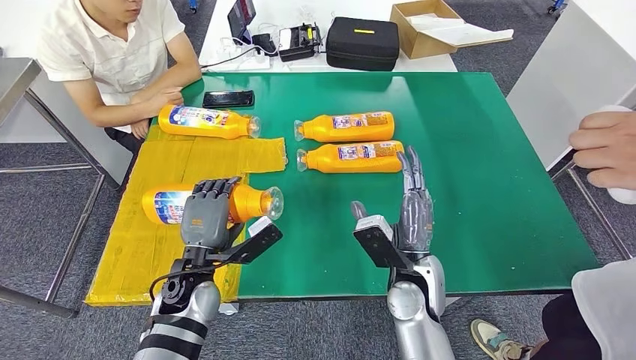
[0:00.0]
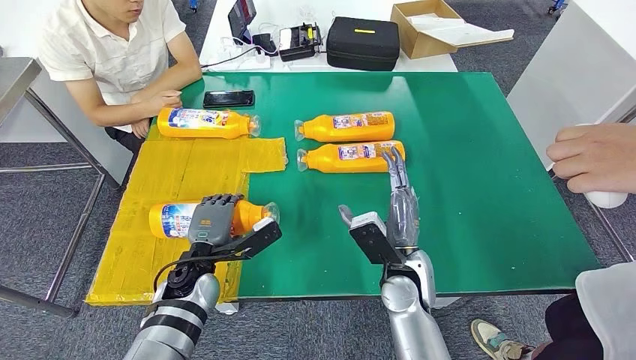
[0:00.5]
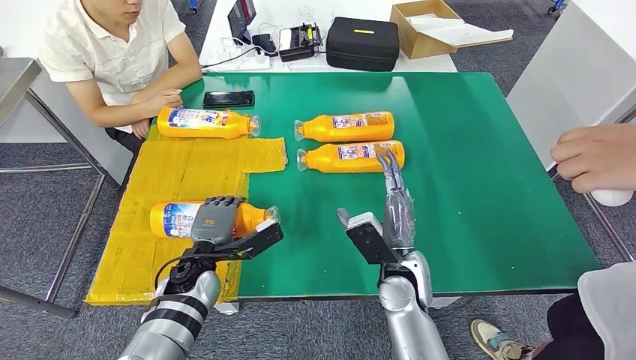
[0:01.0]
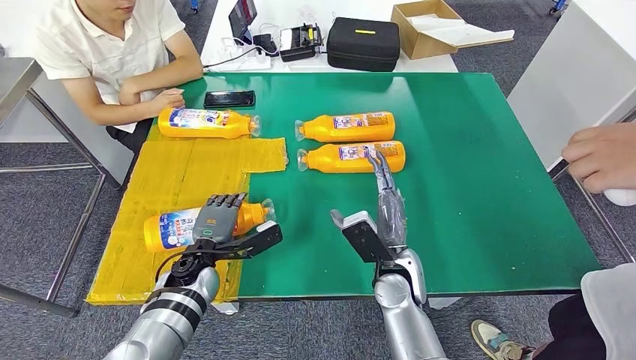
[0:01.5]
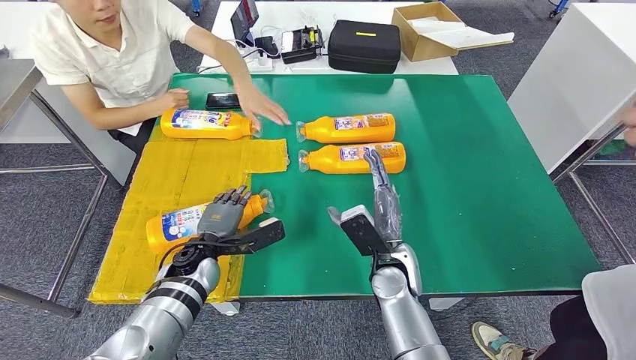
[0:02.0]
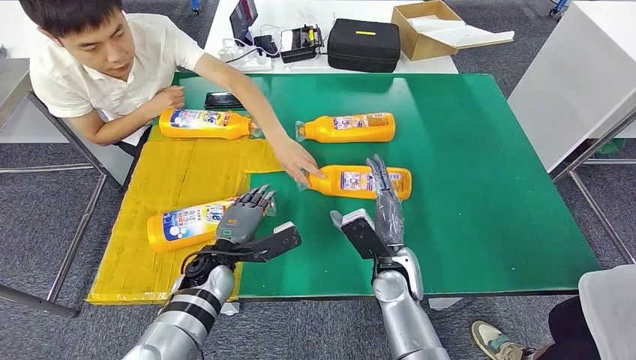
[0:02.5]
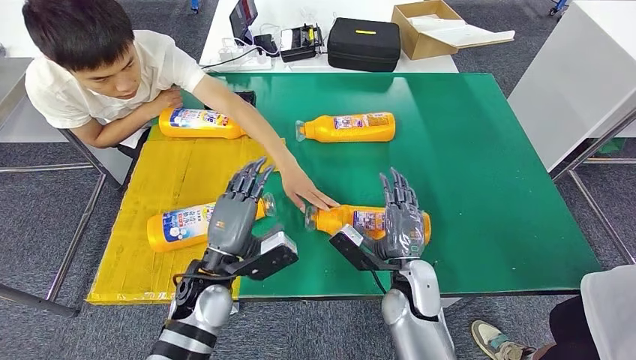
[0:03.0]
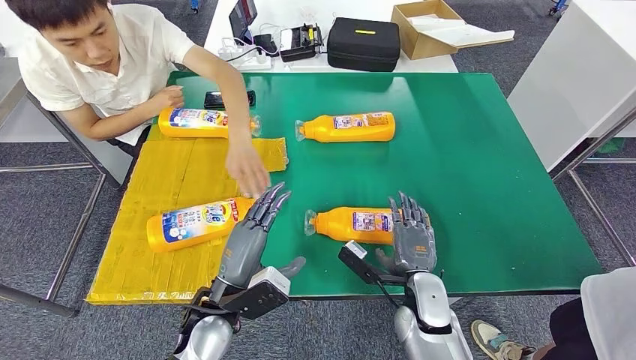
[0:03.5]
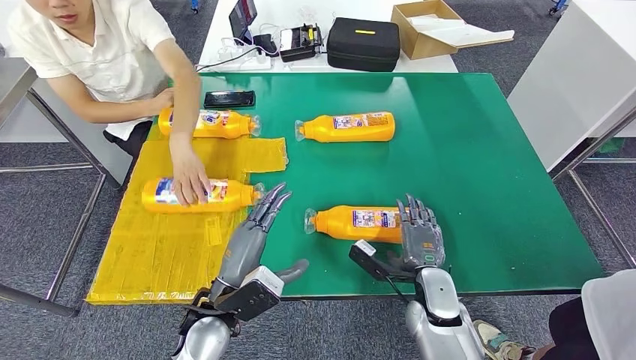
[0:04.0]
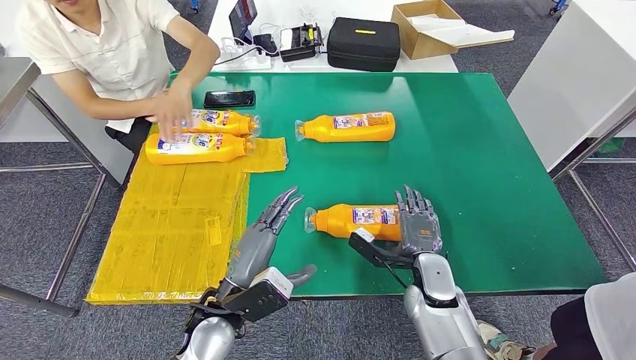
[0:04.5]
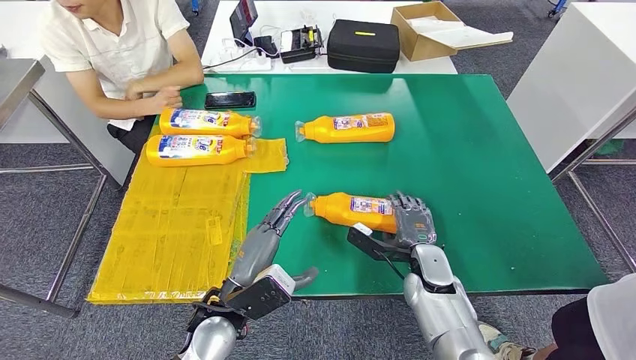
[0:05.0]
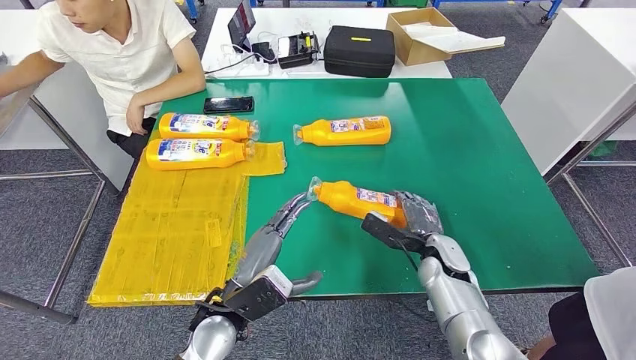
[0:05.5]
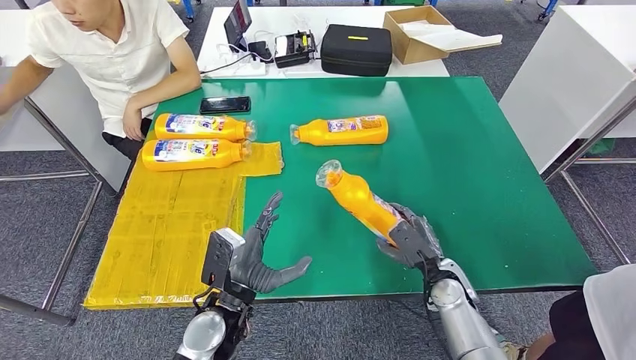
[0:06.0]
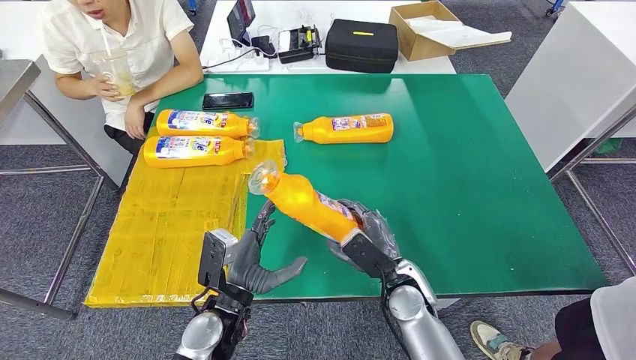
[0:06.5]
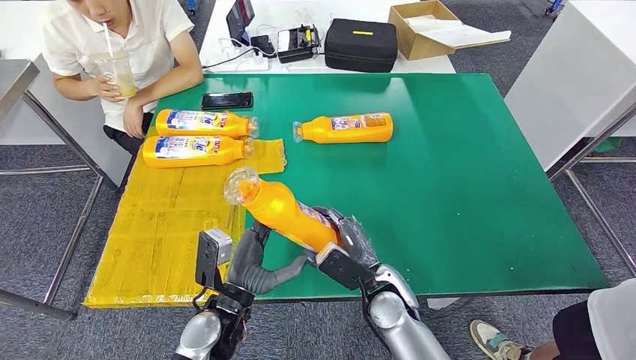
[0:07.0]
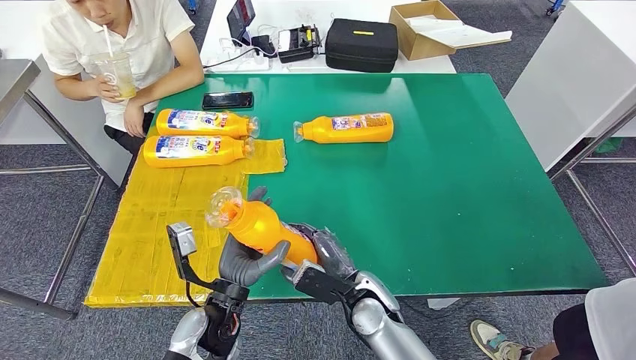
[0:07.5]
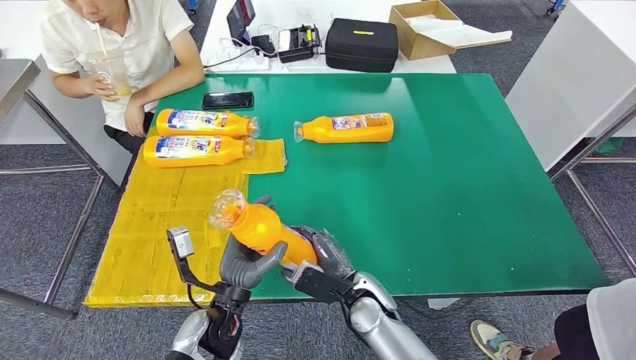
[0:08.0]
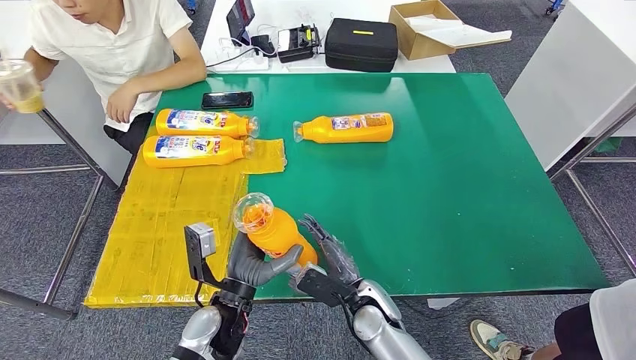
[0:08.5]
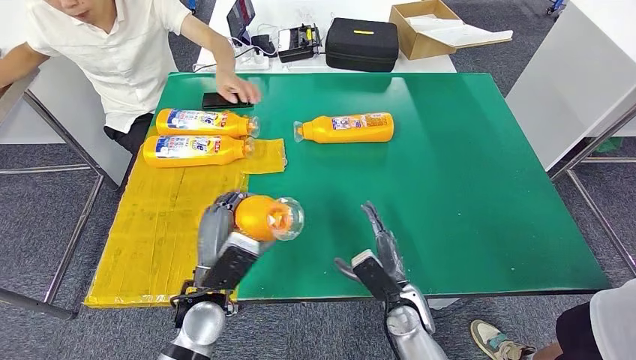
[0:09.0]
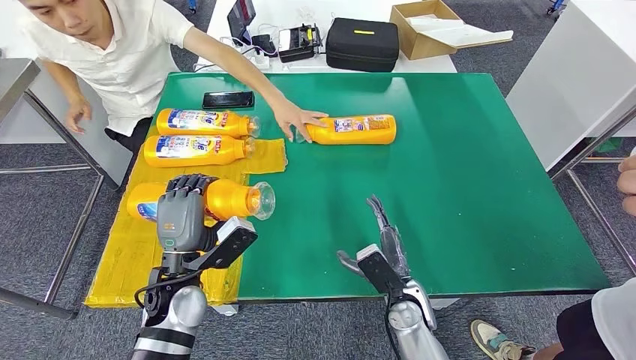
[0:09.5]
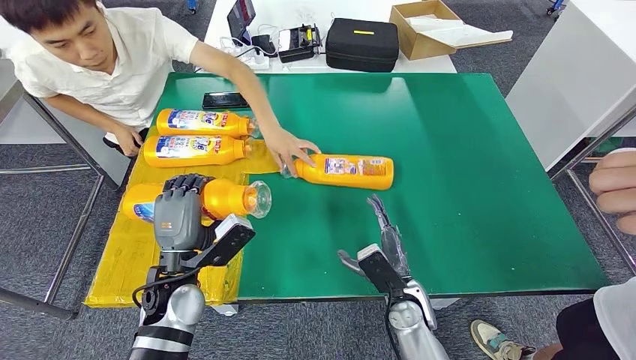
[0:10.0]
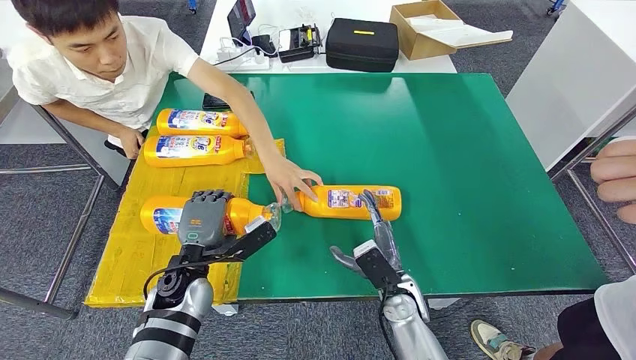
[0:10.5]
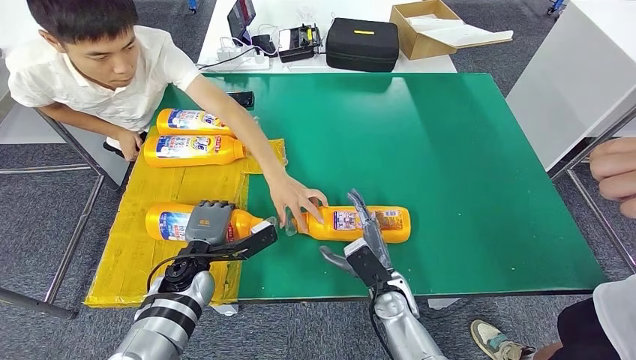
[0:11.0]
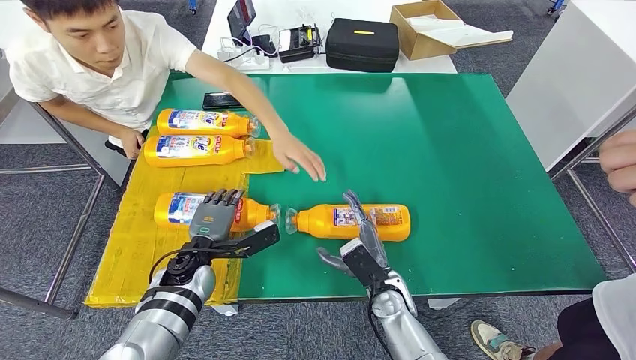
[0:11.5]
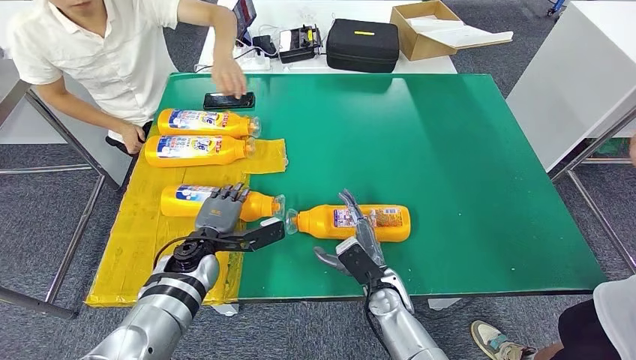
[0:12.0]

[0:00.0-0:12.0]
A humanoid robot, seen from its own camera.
Step, 0:00.0 to 0:04.0: Flip the fast-moving consumer goods bottle to the front side.
Step, 0:04.5 to 0:07.5: Pick up the fast-moving consumer goods bottle from the table.

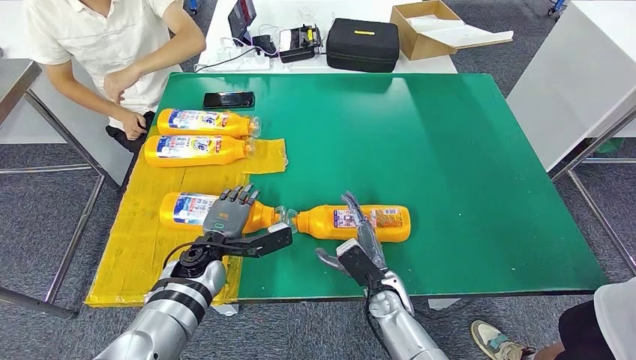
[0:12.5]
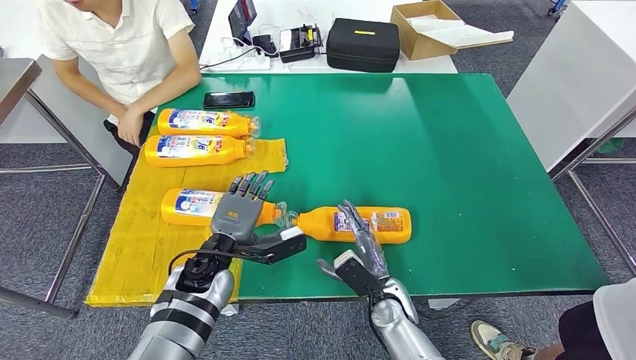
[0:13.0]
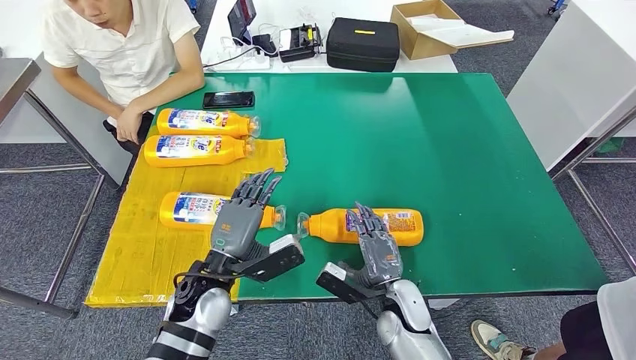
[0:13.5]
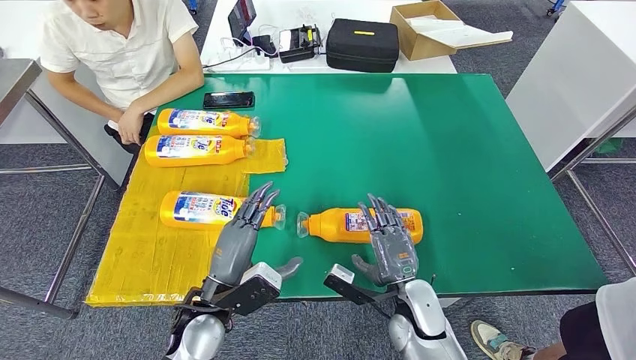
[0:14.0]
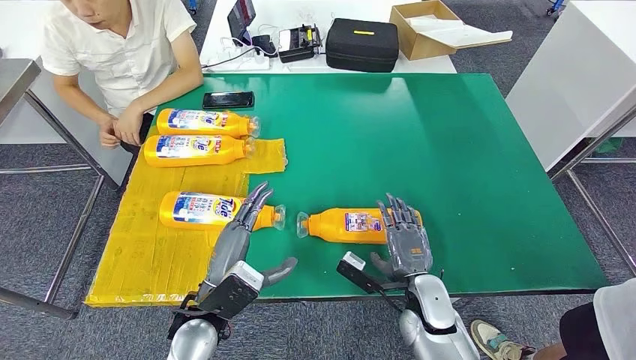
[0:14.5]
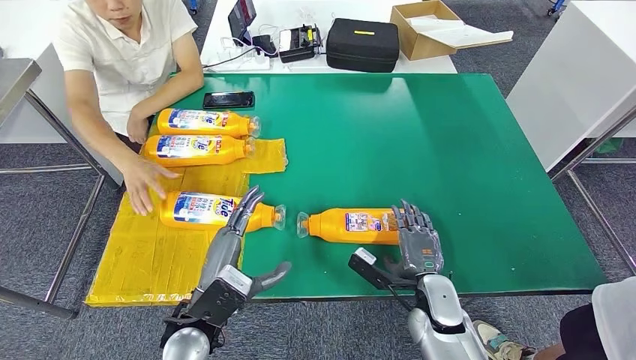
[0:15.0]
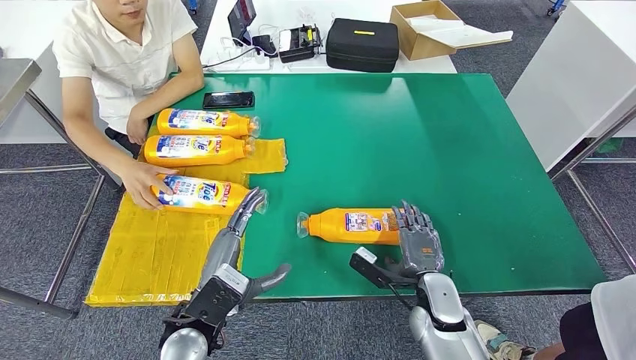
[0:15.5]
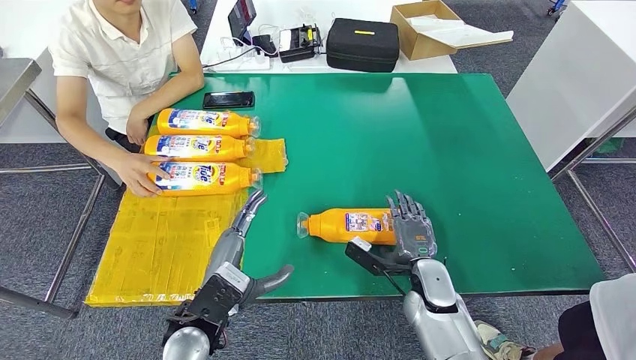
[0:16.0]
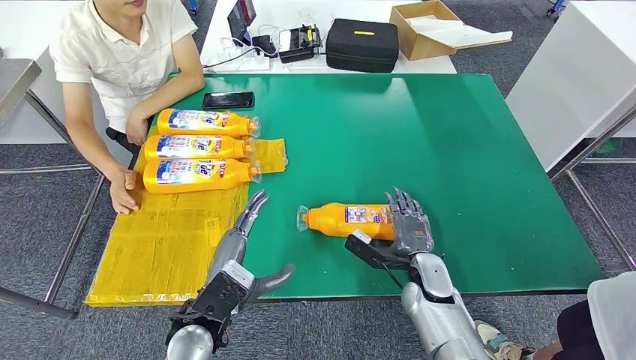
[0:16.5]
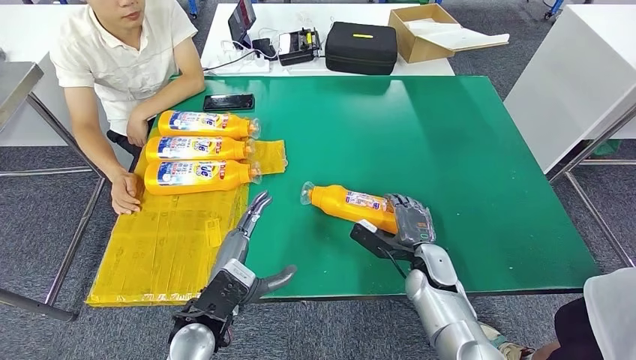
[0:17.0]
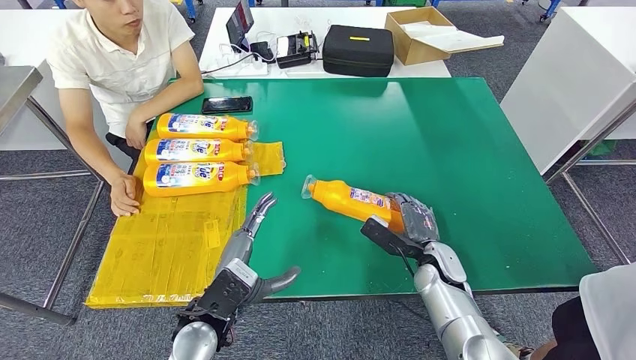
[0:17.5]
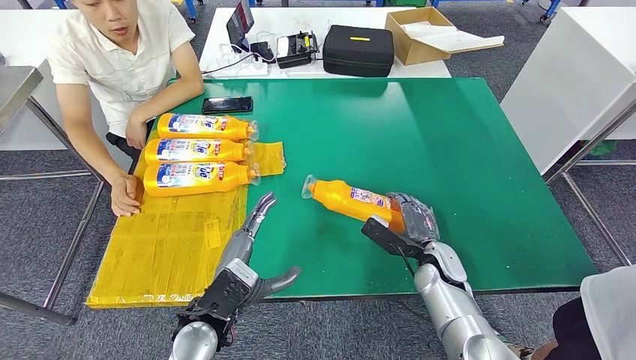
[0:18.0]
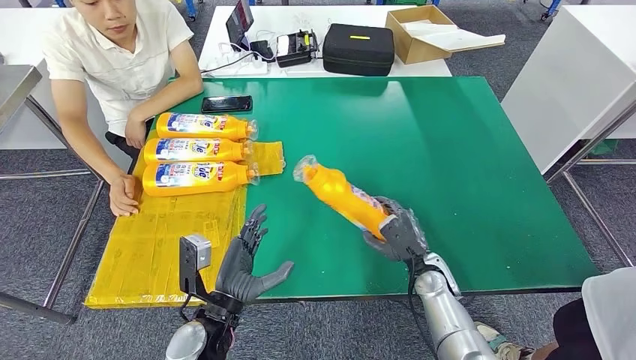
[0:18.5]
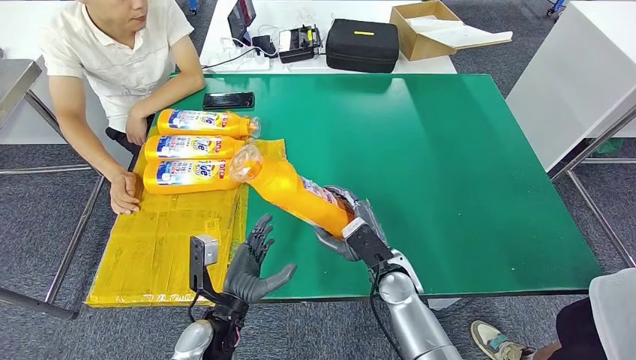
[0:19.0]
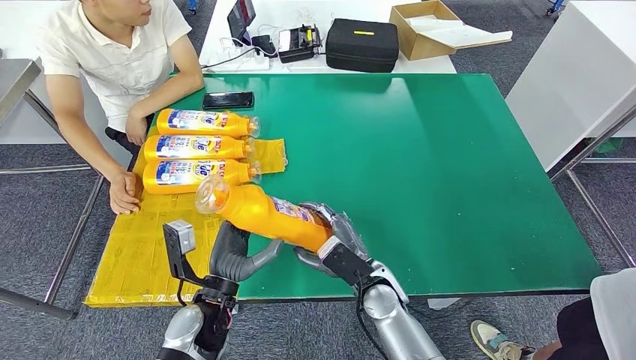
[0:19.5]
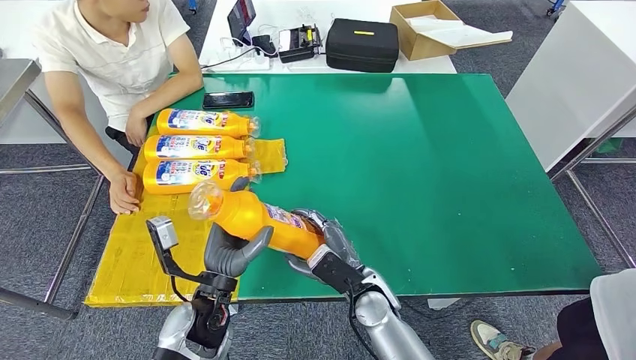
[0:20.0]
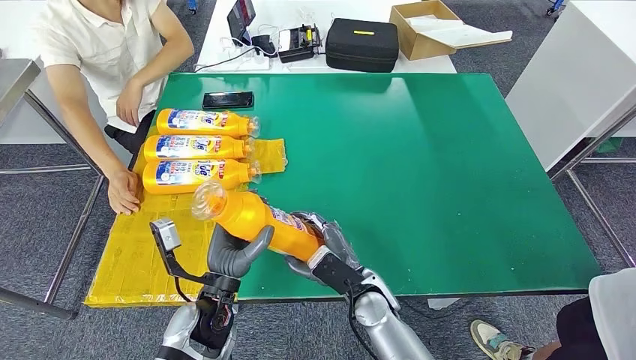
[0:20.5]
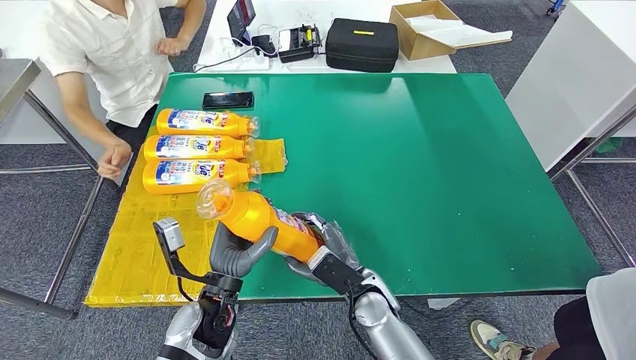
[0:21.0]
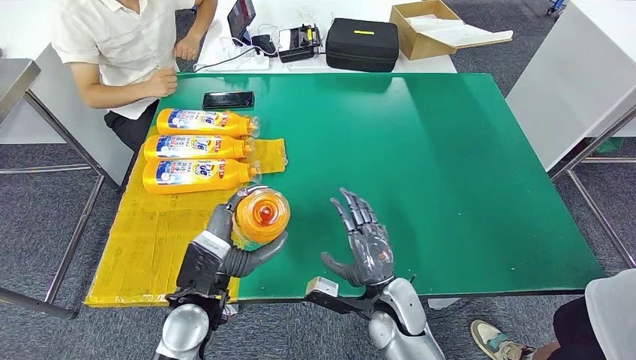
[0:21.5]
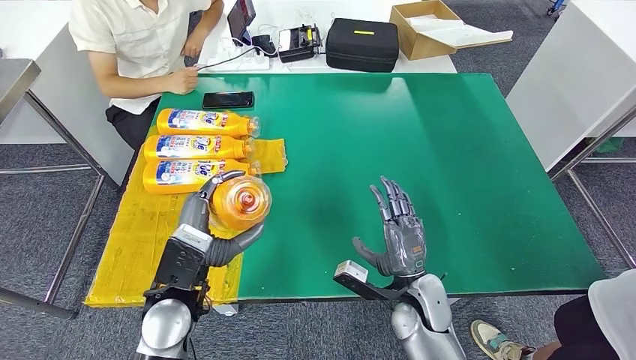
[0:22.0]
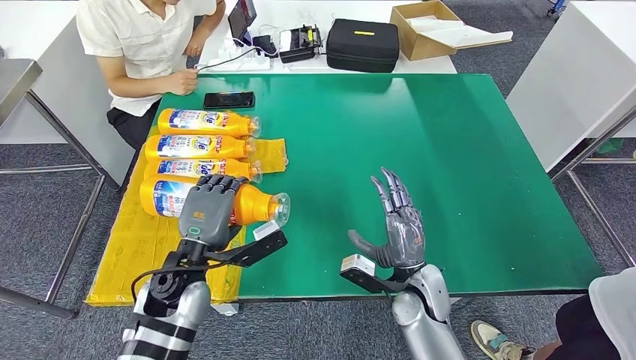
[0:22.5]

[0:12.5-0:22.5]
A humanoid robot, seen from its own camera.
Step, 0:12.5 to 0:14.5: Flip the fast-moving consumer goods bottle to the front side.
Step, 0:15.0 to 0:21.0: Pick up the fast-moving consumer goods bottle from the table.
0:12.5 to 0:14.5: The right hand moves to the right, some 5 cm. The left hand moves backward, about 15 cm.
0:14.5 to 0:16.5: The right hand moves forward, roughly 5 cm.
